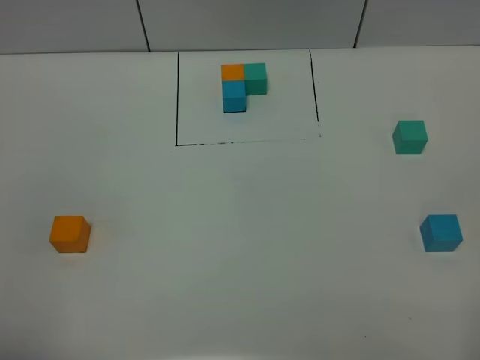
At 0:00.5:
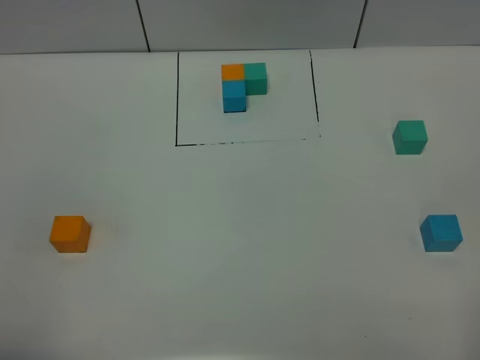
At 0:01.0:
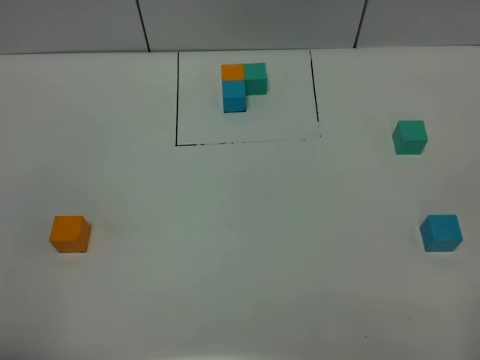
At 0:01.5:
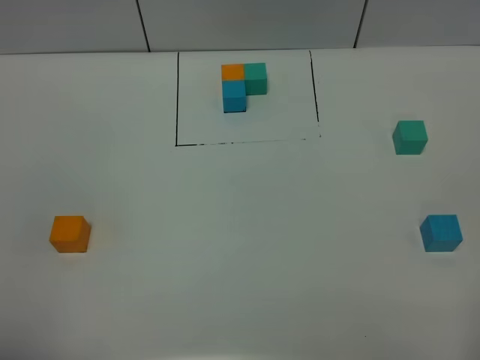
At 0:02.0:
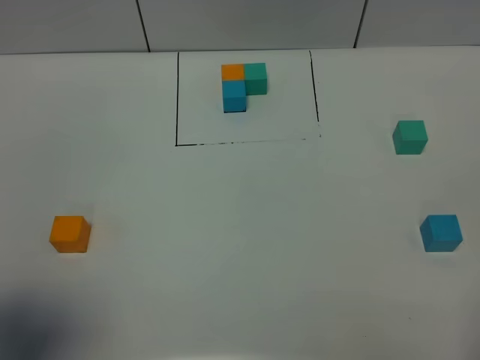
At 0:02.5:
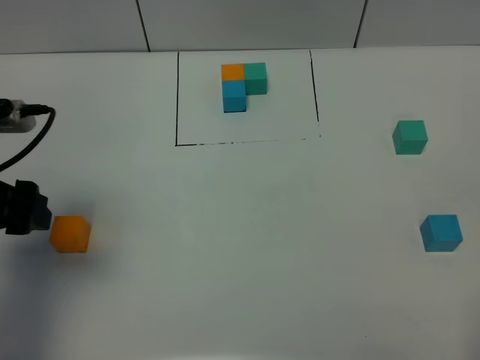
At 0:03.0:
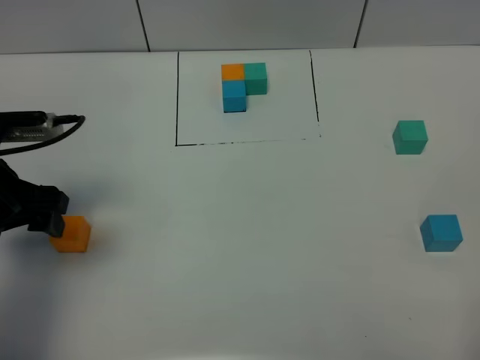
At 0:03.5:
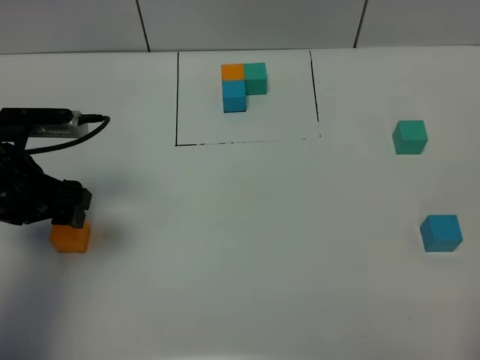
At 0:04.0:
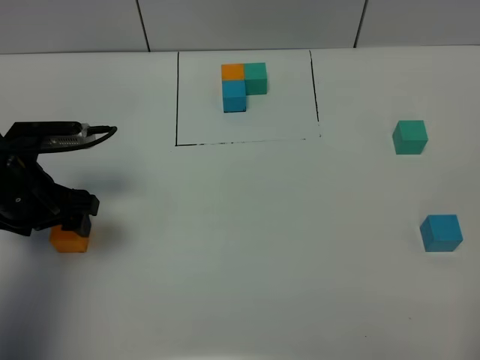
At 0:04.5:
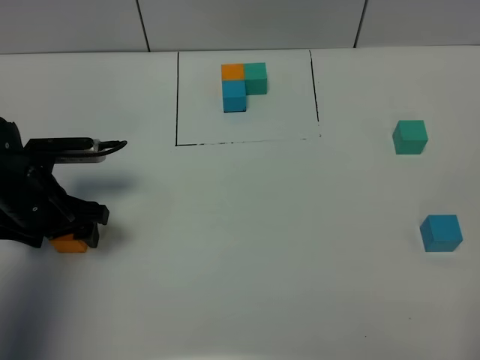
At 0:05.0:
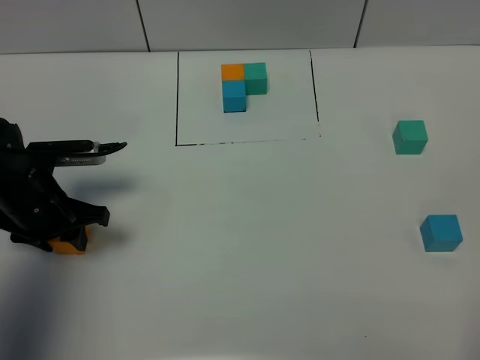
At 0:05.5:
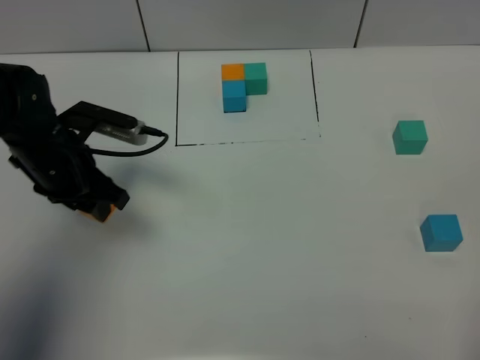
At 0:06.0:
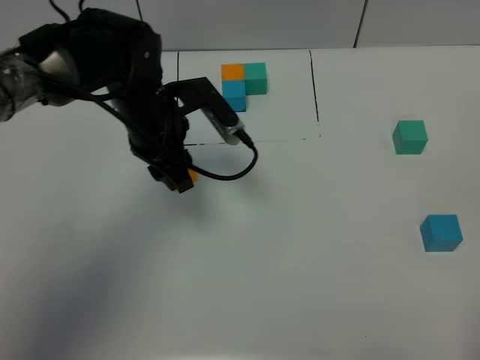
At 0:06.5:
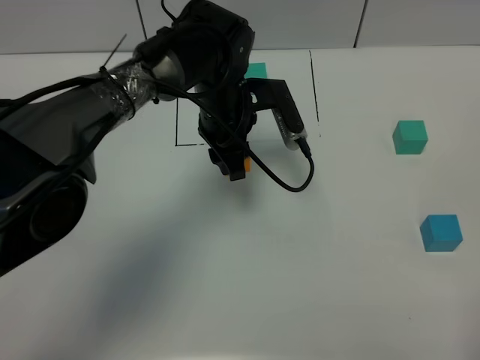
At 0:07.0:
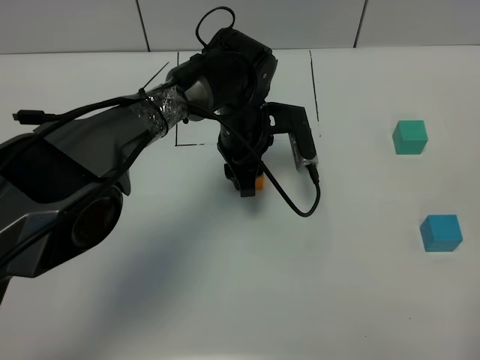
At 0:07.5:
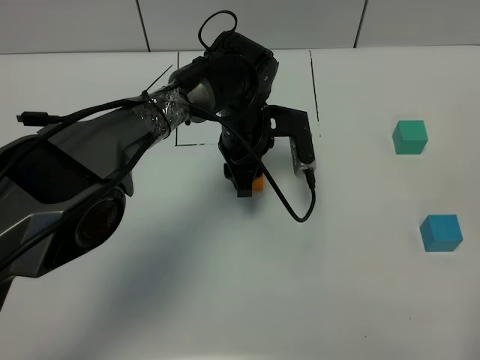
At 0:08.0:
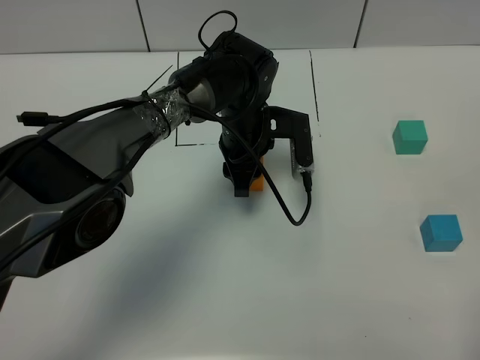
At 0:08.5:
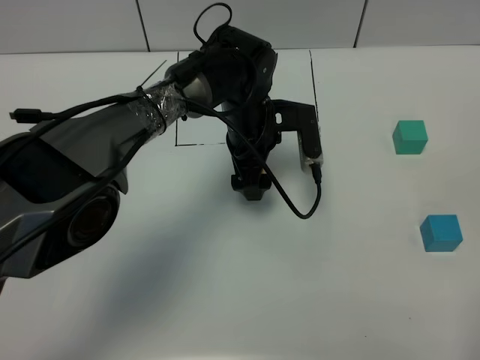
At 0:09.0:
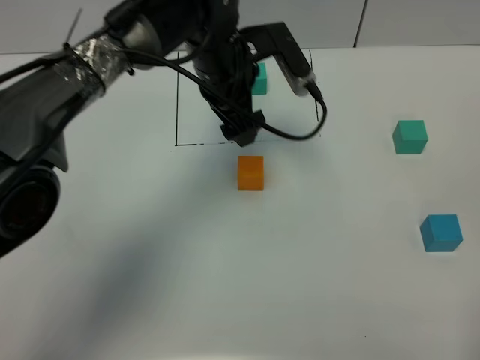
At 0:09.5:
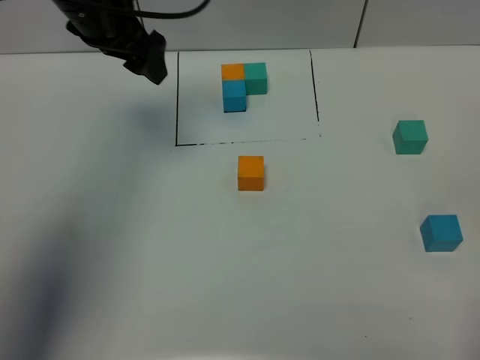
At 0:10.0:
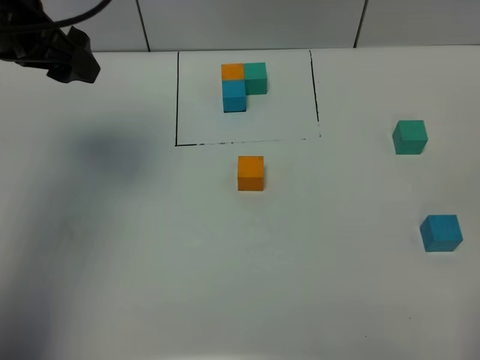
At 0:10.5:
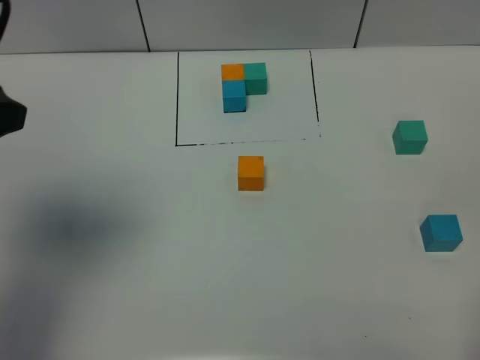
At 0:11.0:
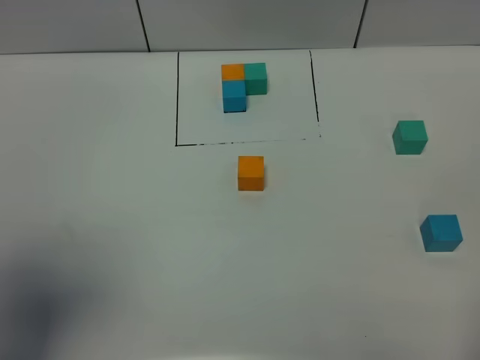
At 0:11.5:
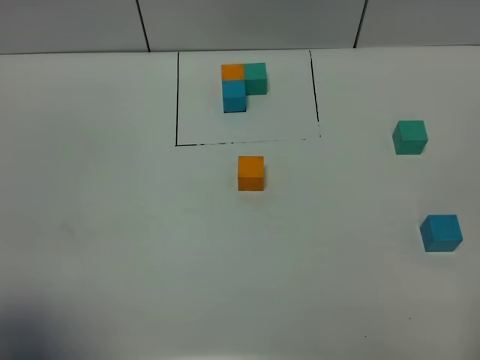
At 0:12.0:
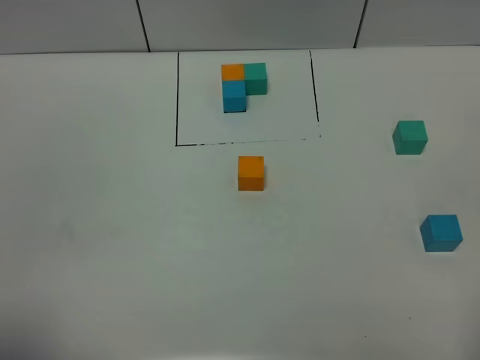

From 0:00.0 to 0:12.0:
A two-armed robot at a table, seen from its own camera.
Task of the whole recording: According to the building block template in front, assemble the scattered blocks together.
Step, from 0:00.0 to 0:08.0: Put the orange build block in the center of the table.
From 0:00.0 to 0:02.0: The left gripper moves forward, about 10 cm.
From 0:02.0 to 0:04.0: The left gripper shifts approximately 25 cm forward and downward.
From 0:04.0 to 0:06.0: The left gripper shifts approximately 20 cm to the right and forward, and closes up.
From 0:06.0 to 0:08.0: The left gripper heads to the right and downward, covering roughly 10 cm.
From 0:08.0 to 0:10.0: The left gripper heads to the left and upward, covering some 35 cm, and opens.
From 0:10.0 to 0:12.0: The left gripper heads backward, covering approximately 35 cm.

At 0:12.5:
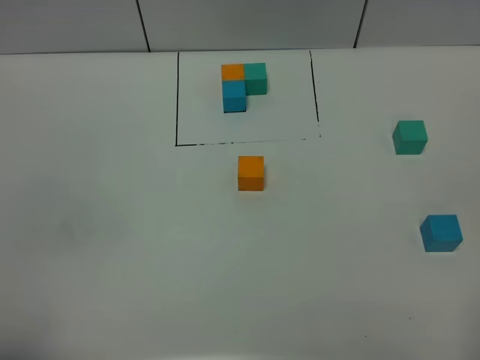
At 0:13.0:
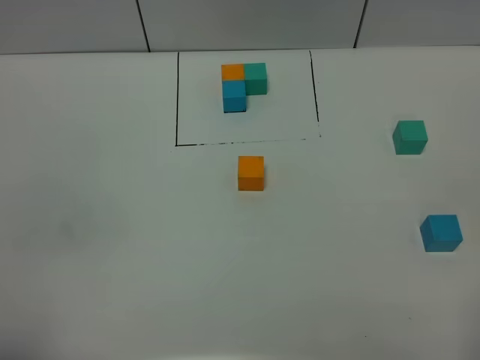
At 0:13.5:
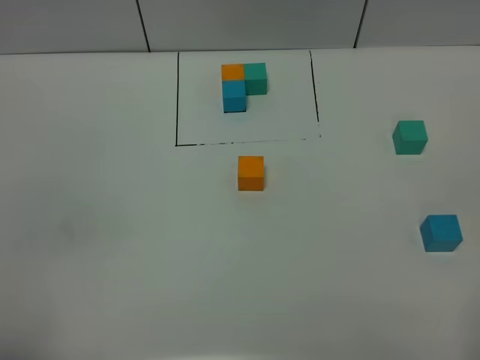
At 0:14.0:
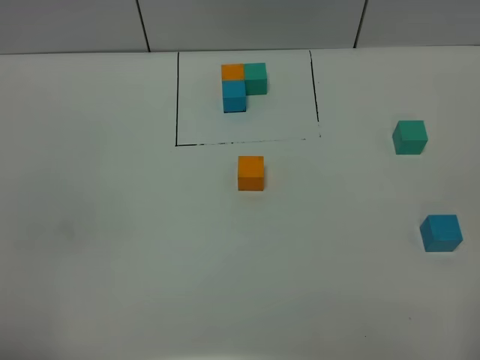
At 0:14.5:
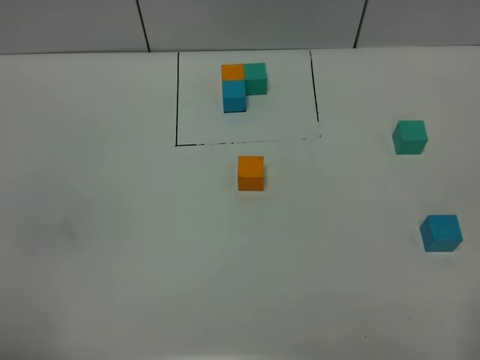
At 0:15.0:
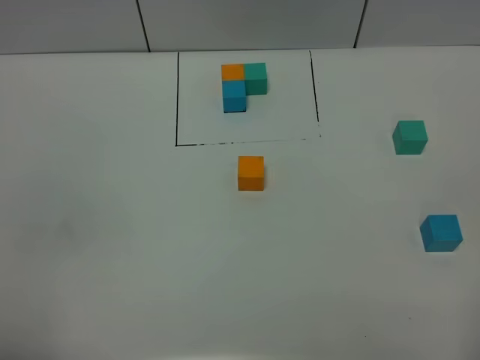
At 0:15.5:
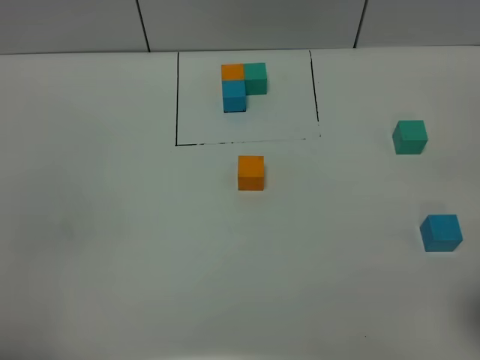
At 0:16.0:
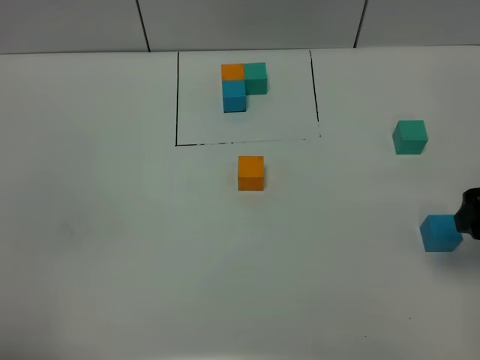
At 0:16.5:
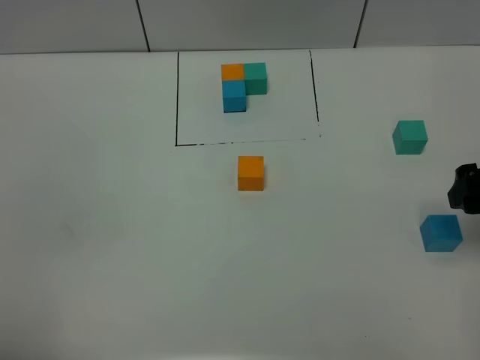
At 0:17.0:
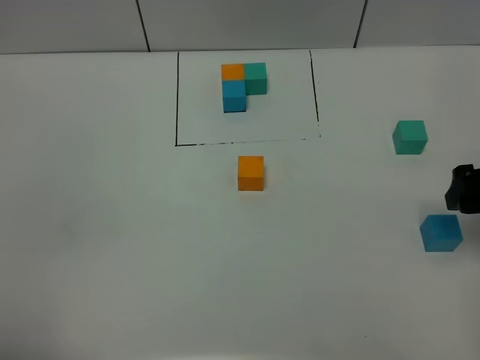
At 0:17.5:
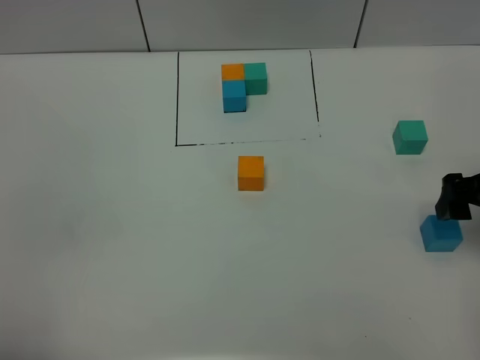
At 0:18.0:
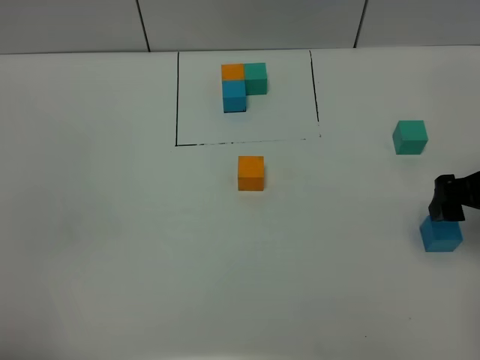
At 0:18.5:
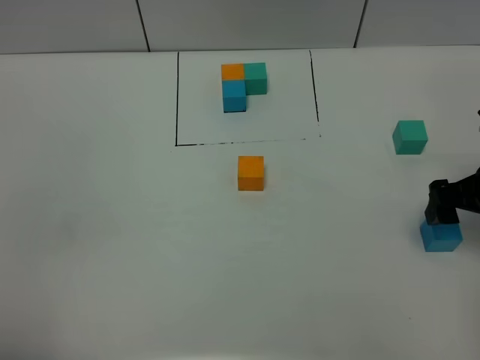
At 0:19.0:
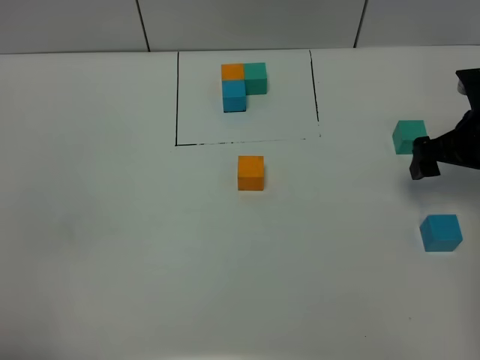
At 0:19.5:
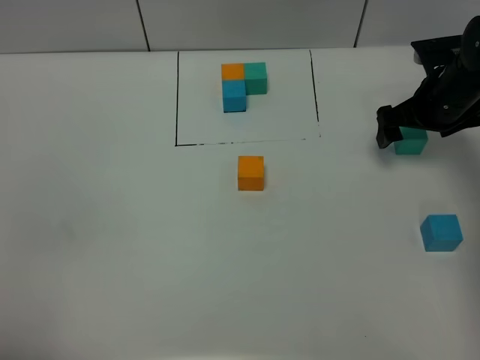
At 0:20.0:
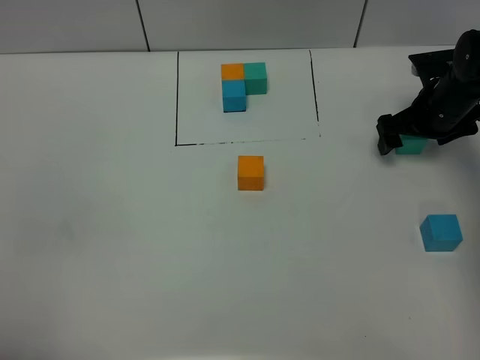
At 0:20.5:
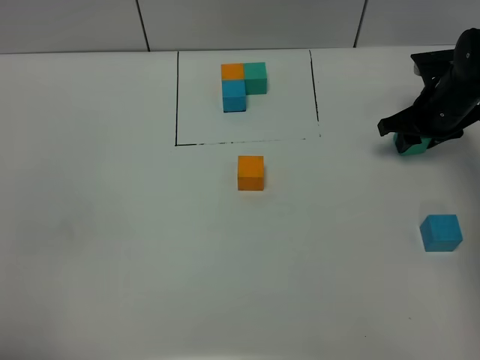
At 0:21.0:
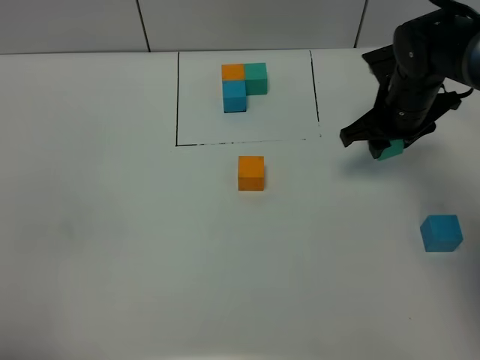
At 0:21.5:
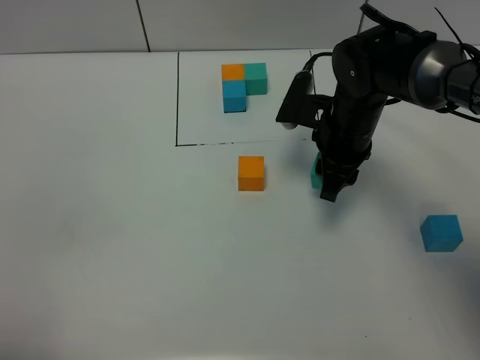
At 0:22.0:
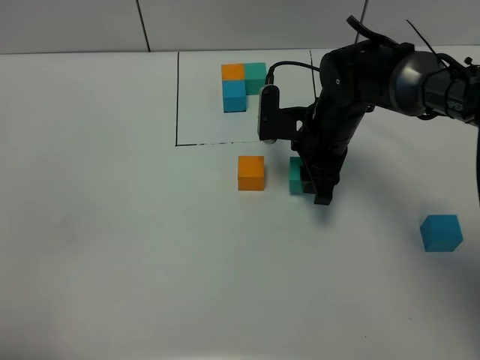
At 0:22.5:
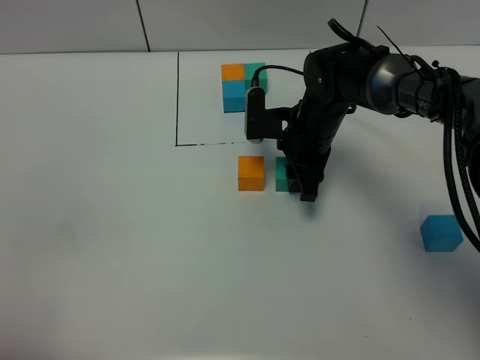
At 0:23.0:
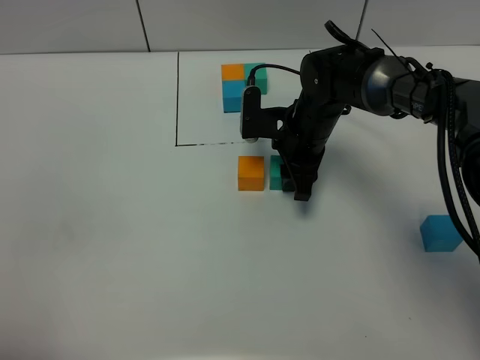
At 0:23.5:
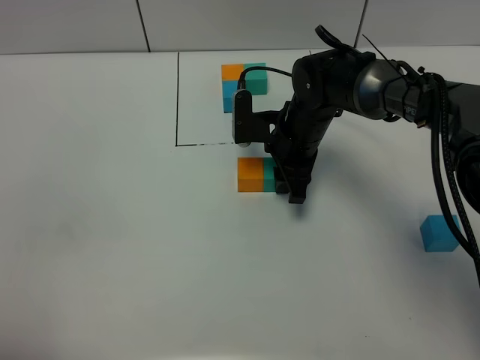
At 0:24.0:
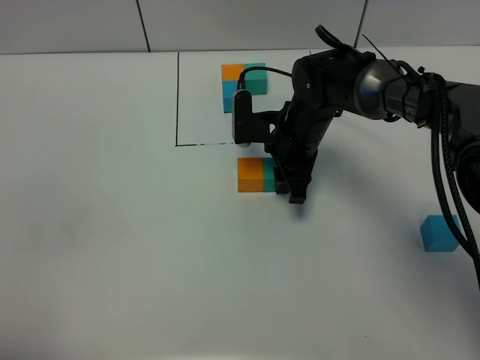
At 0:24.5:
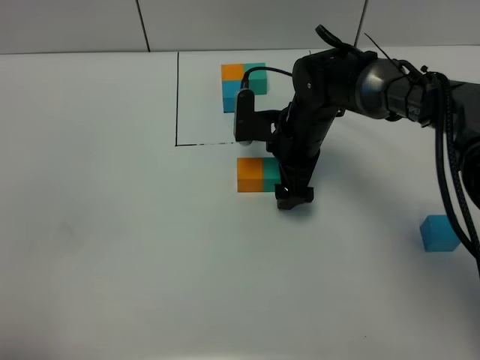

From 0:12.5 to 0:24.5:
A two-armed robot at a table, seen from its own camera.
Task of the whole recording: According to the building block template in front, assemble the scattered blocks together.
Step, from 0:12.5 to 0:24.0: Put the green build block on the right of the orange build block.
From 0:14.5 to 0:16.5: The right gripper shifts roughly 25 cm forward.
From 0:16.5 to 0:18.5: The right gripper moves some 5 cm.
From 0:18.5 to 0:20.5: The right gripper is displaced forward by approximately 15 cm, and closes.
From 0:20.5 to 0:22.5: The right gripper heads to the left, covering approximately 20 cm.
From 0:22.5 to 0:24.5: The right gripper opens.

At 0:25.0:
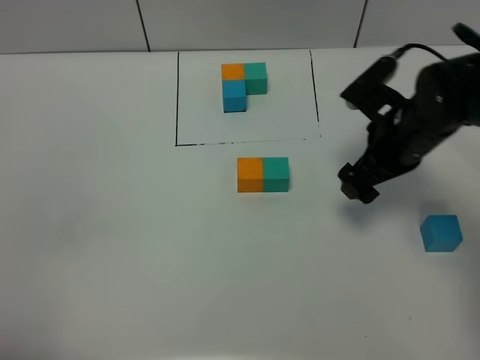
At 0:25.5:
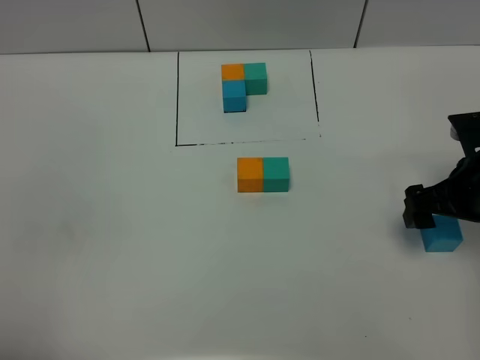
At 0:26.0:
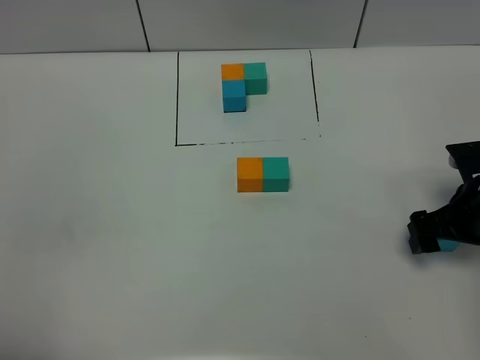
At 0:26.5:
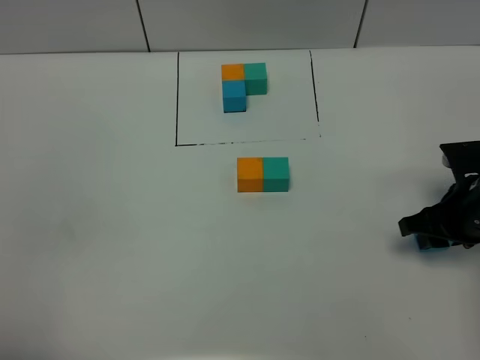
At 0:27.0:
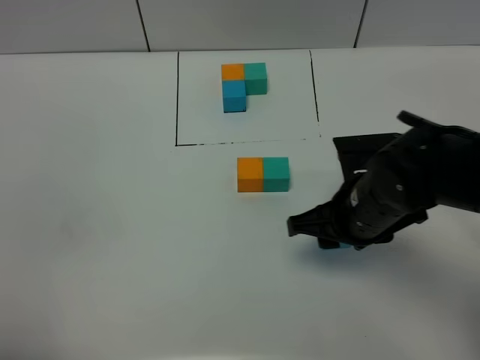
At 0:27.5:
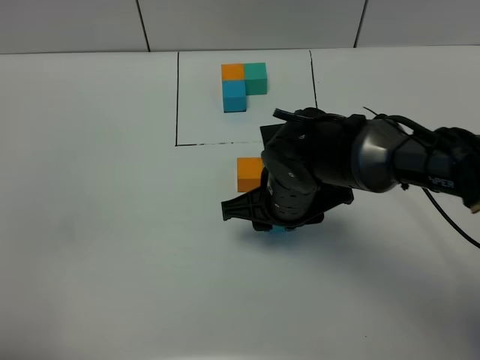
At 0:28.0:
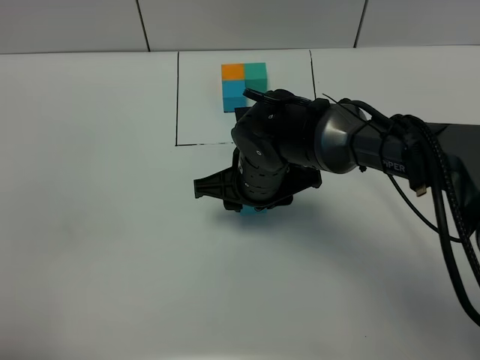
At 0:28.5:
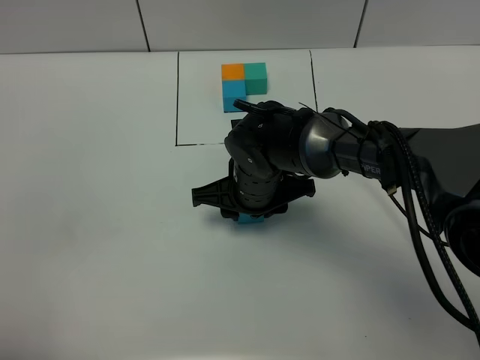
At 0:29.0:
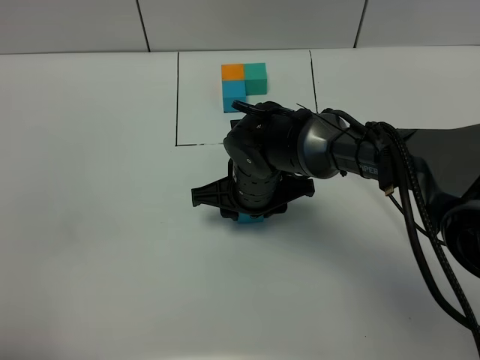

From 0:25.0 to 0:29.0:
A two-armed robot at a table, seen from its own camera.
Task of the whole recording: According to the building block template in front, assemble the scattered blocks together.
From 0:25.0 to 0:27.0: The right gripper moves backward and to the left, about 10 cm, and closes.
From 0:27.0 to 0:29.0: The right gripper travels to the left and forward by roughly 15 cm.
